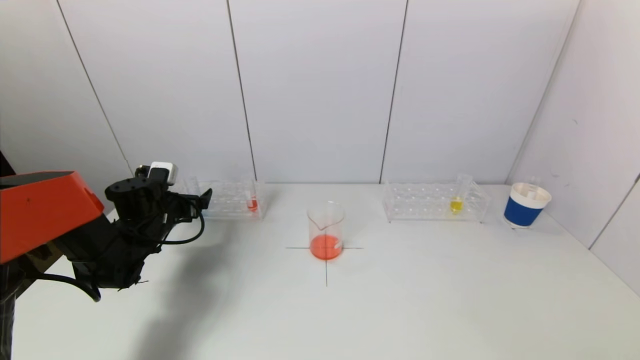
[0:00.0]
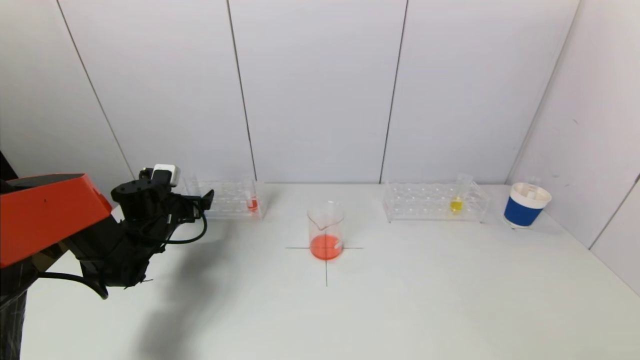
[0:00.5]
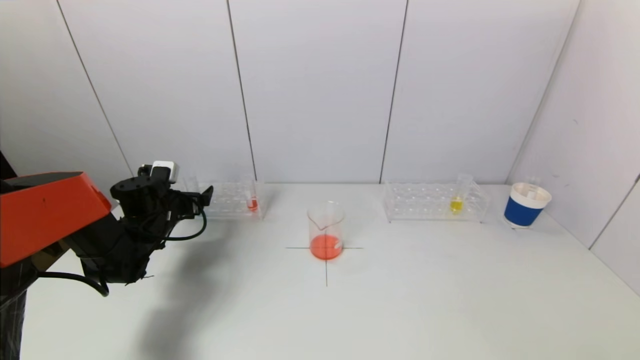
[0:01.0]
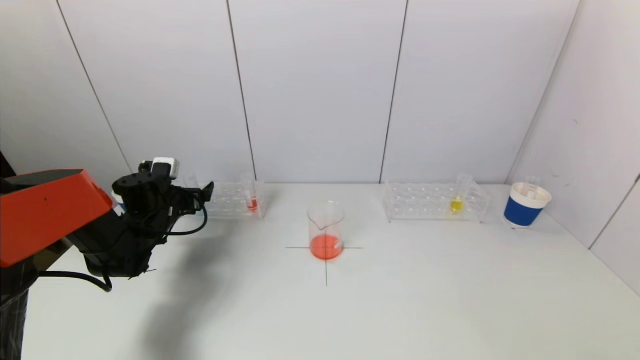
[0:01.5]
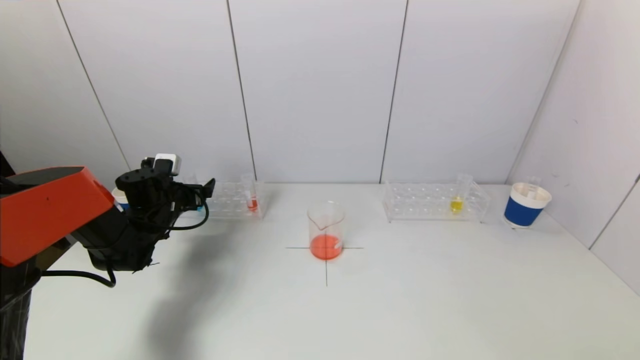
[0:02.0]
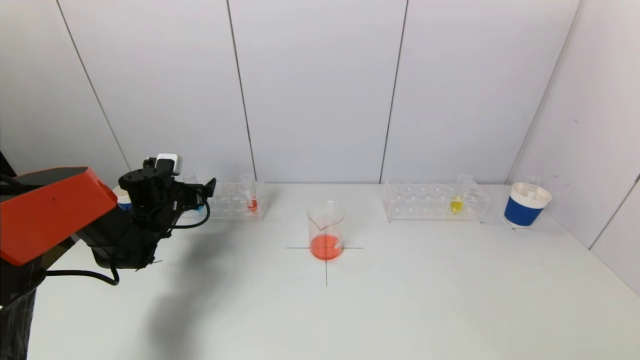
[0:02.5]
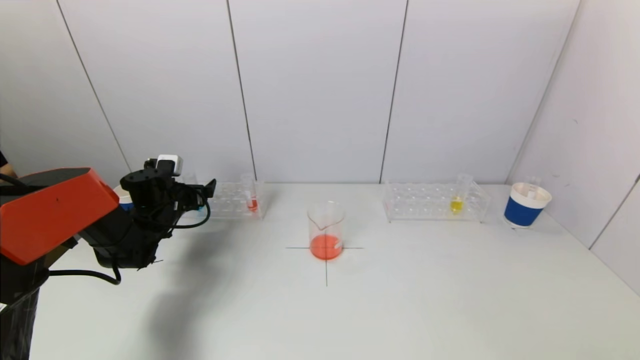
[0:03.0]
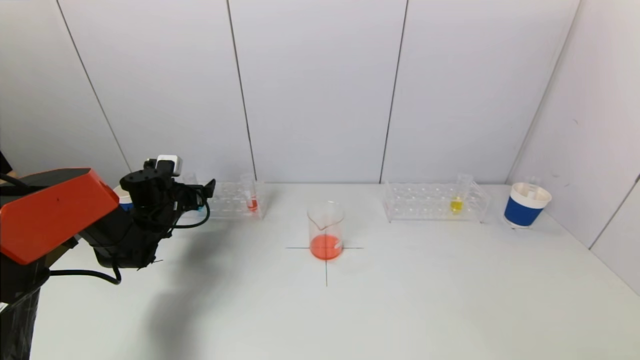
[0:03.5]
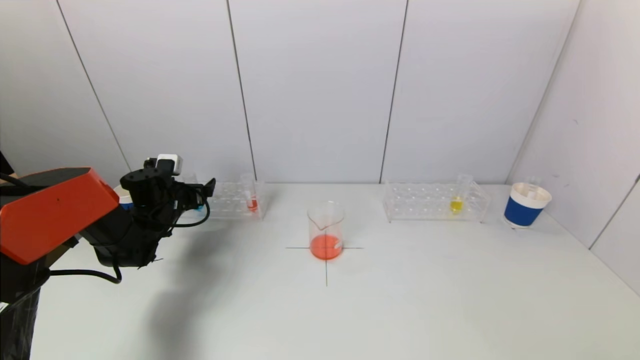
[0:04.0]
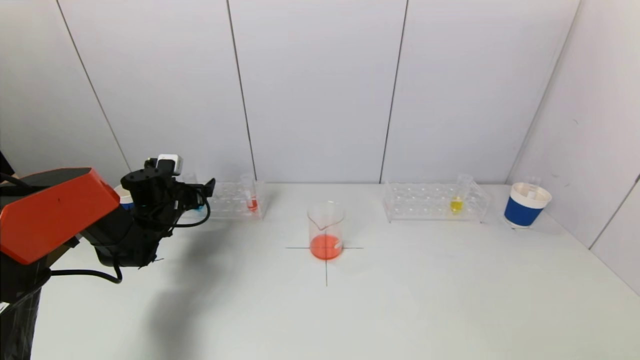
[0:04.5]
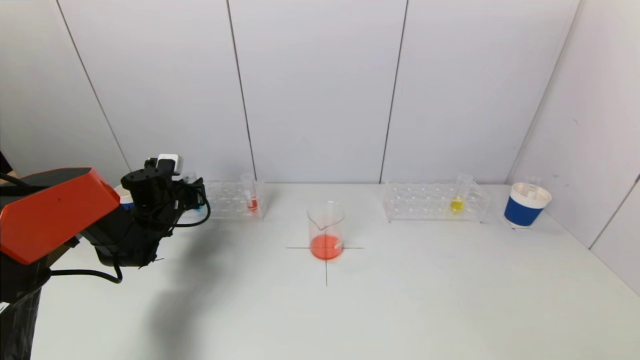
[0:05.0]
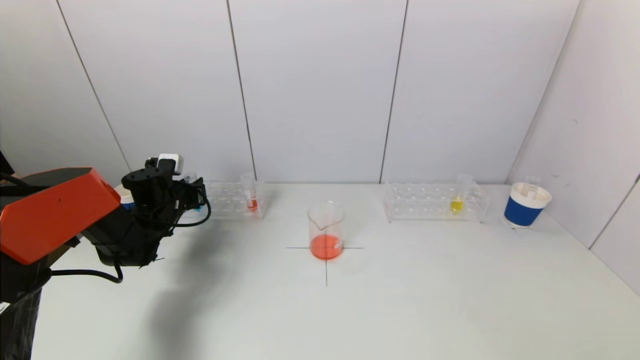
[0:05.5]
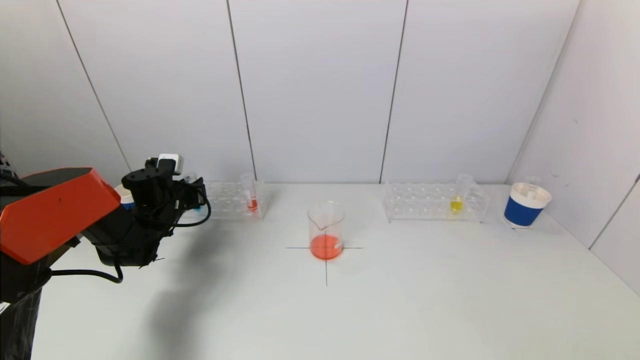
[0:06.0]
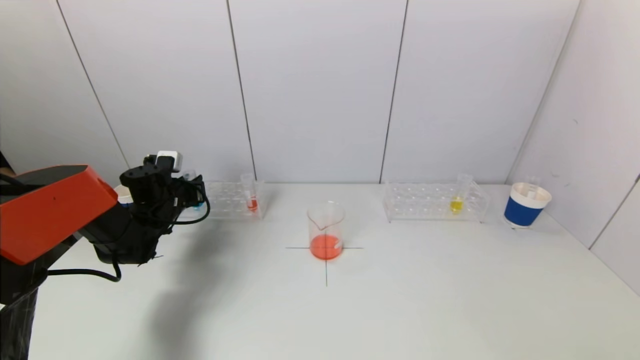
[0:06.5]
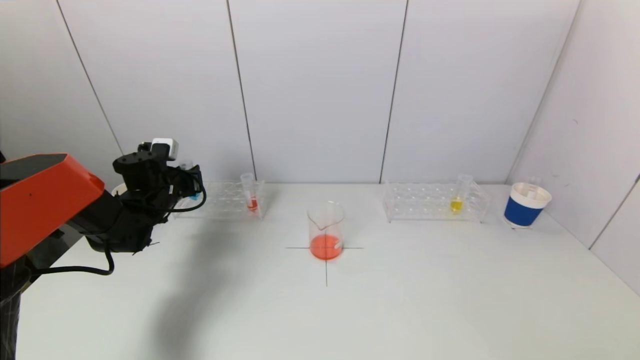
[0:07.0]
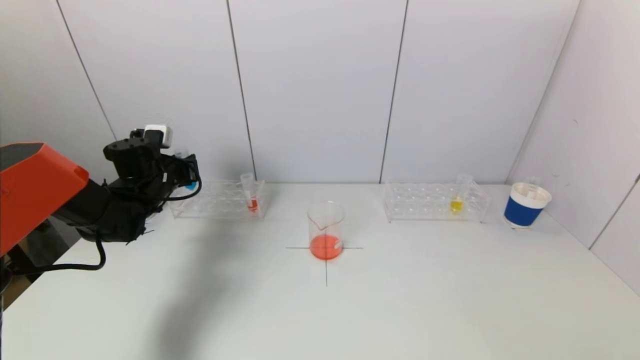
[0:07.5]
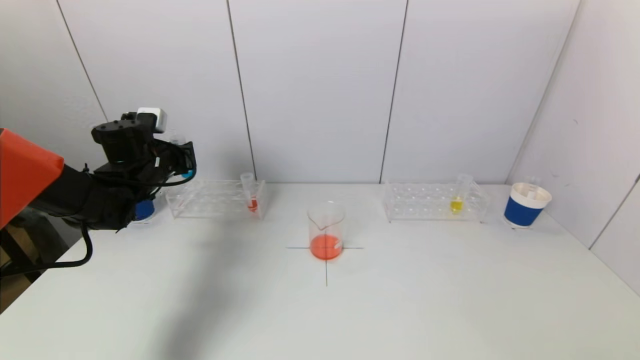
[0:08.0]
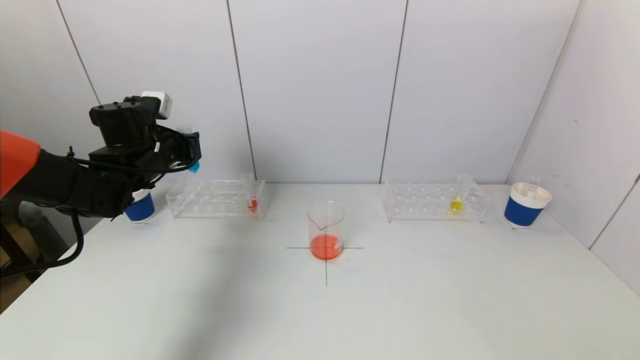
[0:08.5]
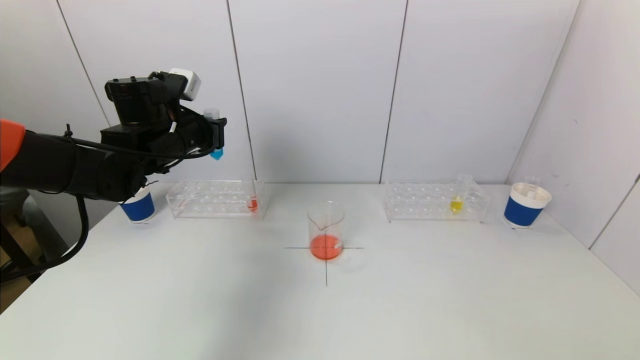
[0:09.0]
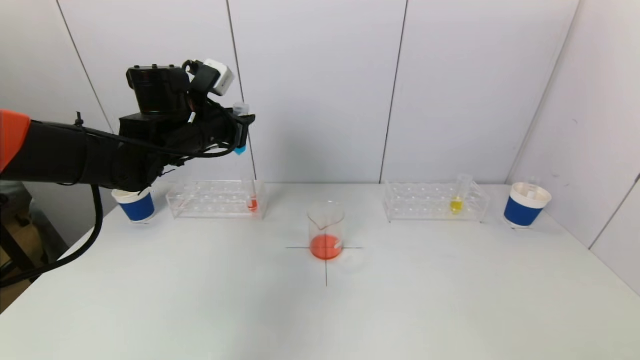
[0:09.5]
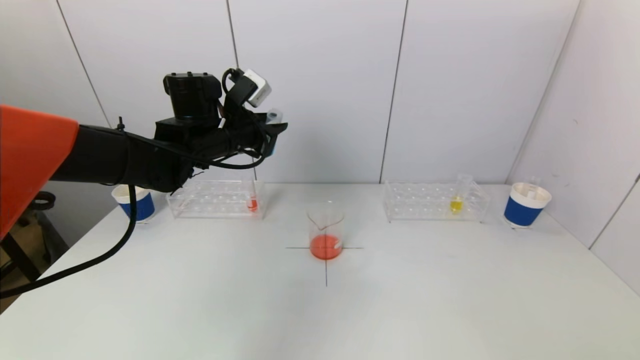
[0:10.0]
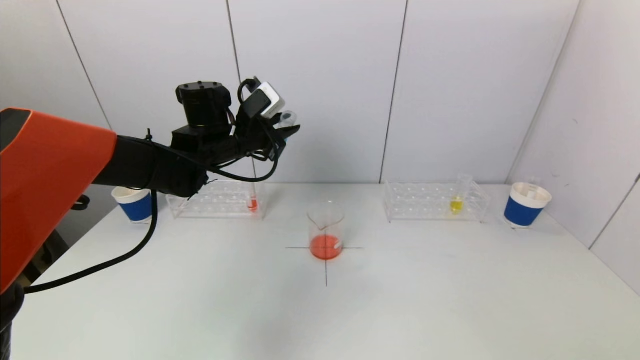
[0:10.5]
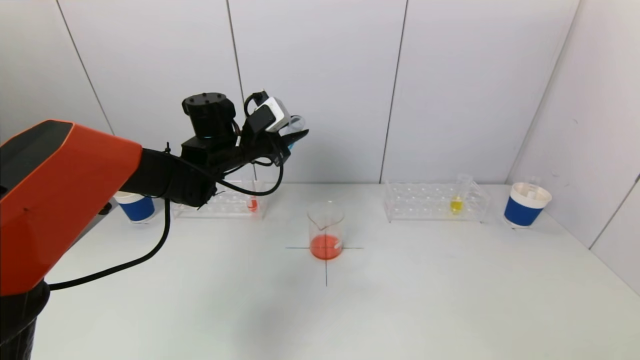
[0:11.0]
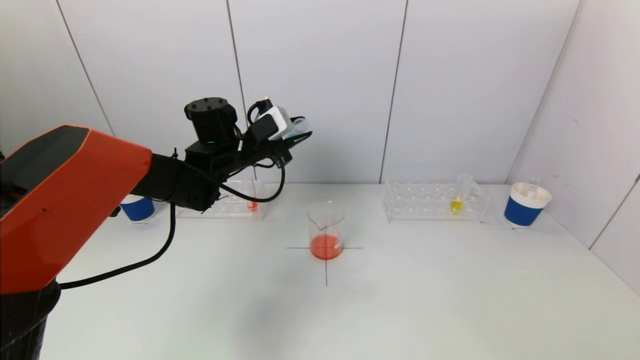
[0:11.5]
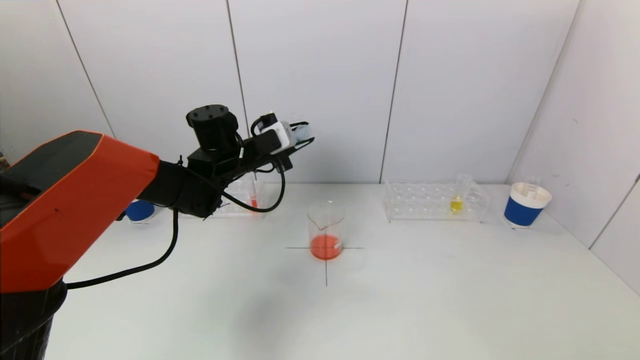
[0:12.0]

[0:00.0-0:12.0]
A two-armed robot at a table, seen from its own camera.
Task of the whole recording: pick up a test tube with pigment on left test tube rack and a test tube with pigment on right test tube rack by grippers and pour them into the beaker.
Step, 0:00.0 to 0:05.0: Grasp the blue reagent with the left gripper.
0:00.0 to 0:02.0: The grippers stay close to where they were, moving slightly.
0:02.0 to 0:04.0: Neither gripper changes place.
0:04.0 to 0:06.0: The left gripper closes its fingers.
0:06.0 to 0:08.0: The left gripper shifts roughly 10 cm upward.
0:08.0 to 0:10.0: The left gripper is displaced to the right and upward by approximately 15 cm.
0:10.0 to 0:12.0: The left gripper shifts by approximately 5 cm.

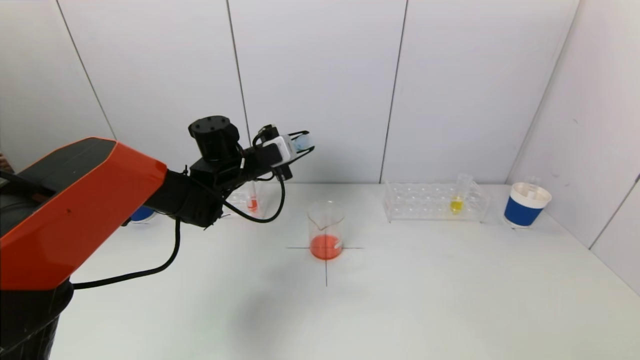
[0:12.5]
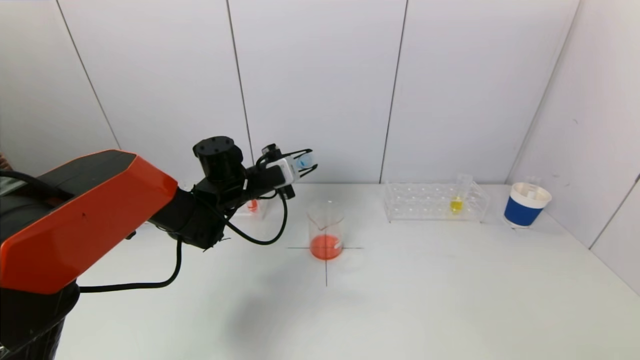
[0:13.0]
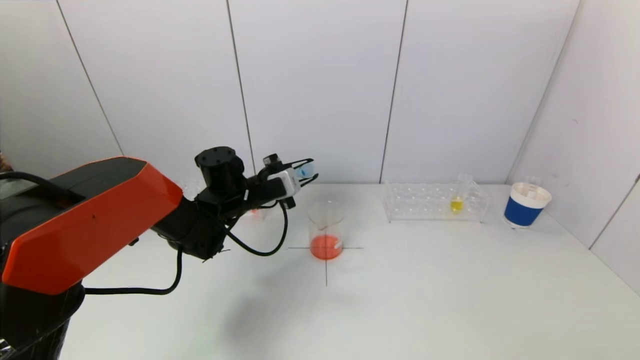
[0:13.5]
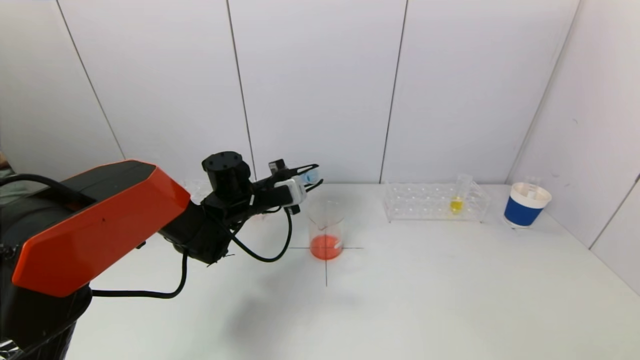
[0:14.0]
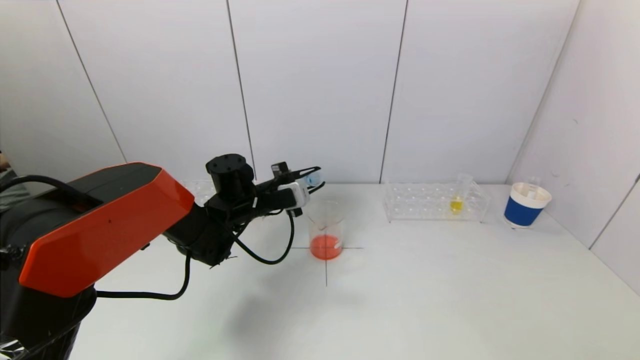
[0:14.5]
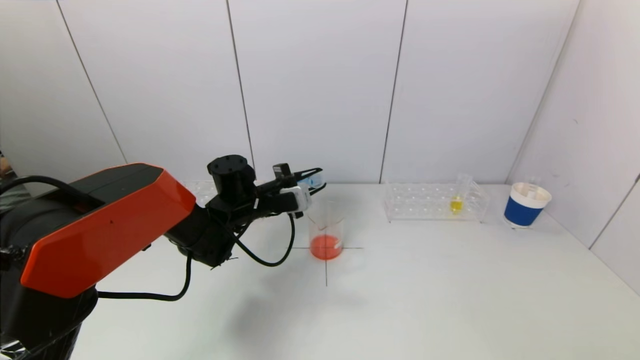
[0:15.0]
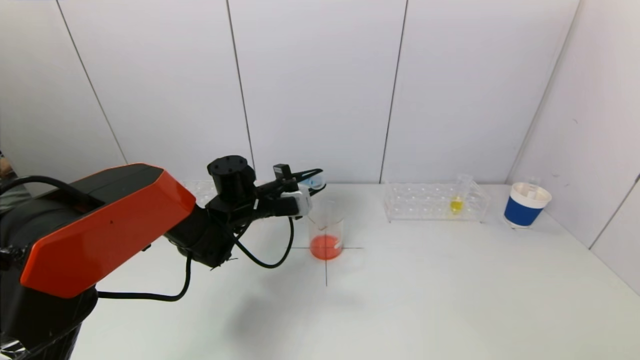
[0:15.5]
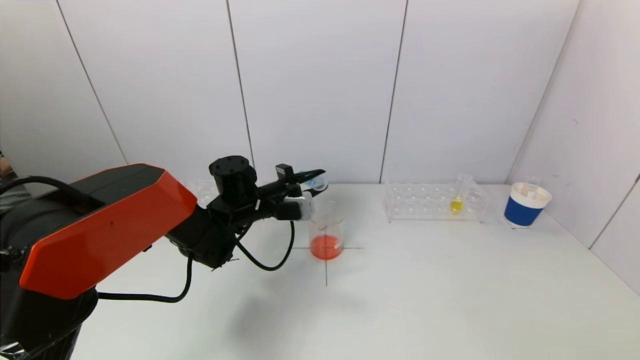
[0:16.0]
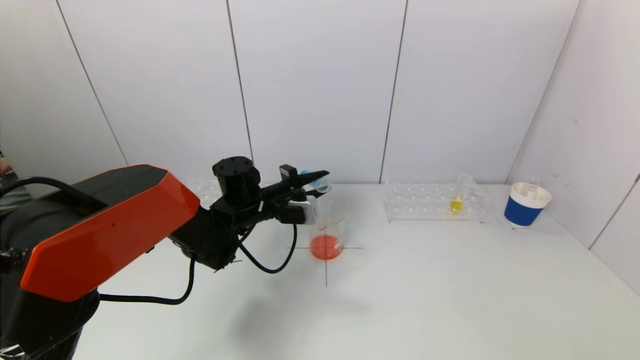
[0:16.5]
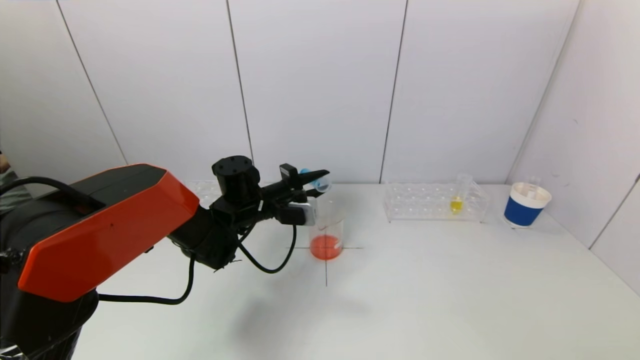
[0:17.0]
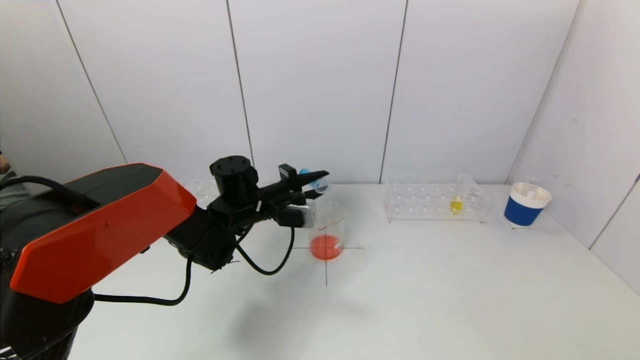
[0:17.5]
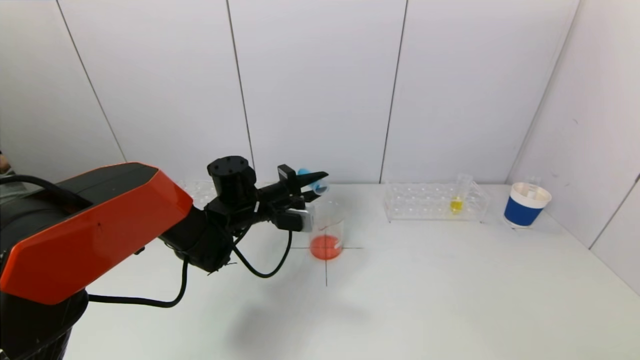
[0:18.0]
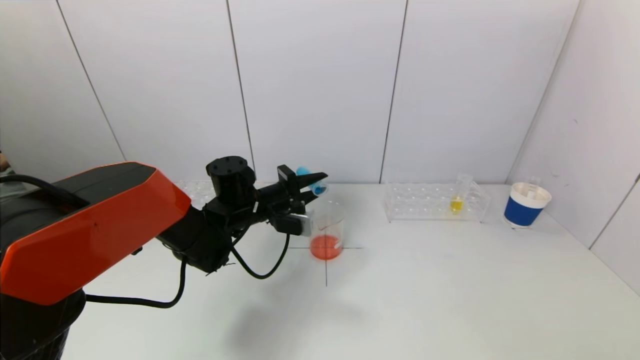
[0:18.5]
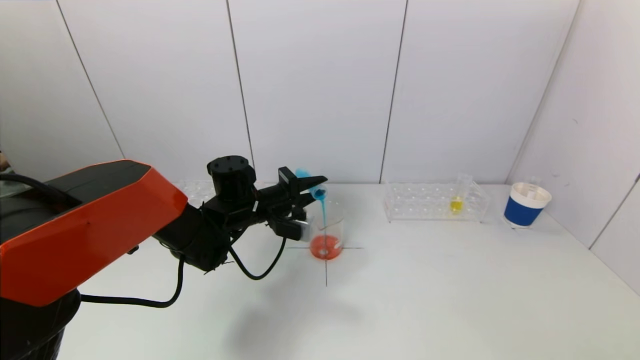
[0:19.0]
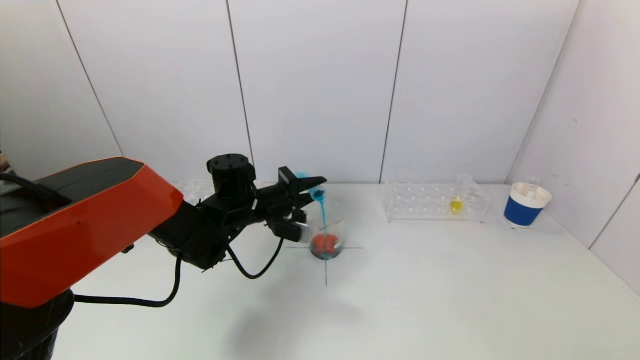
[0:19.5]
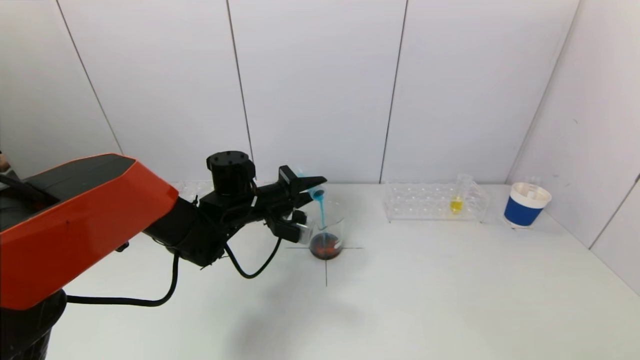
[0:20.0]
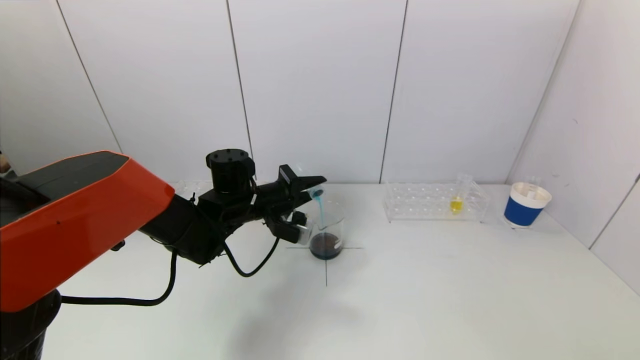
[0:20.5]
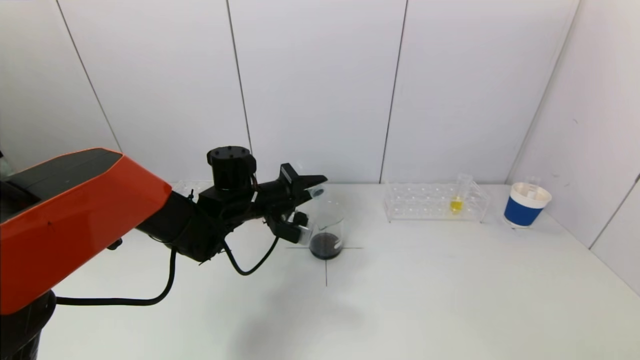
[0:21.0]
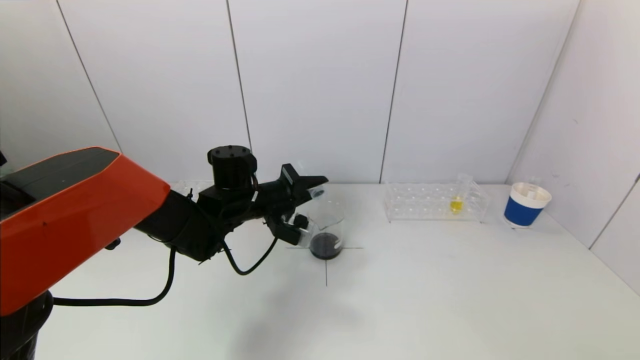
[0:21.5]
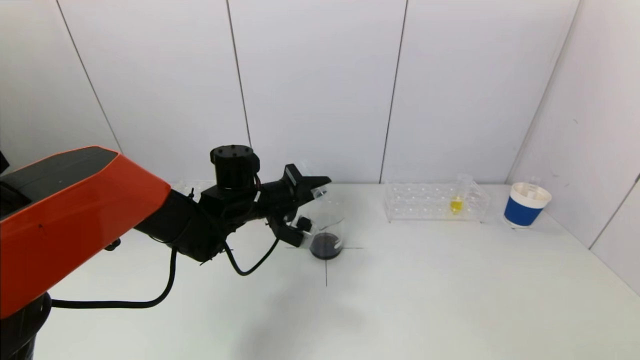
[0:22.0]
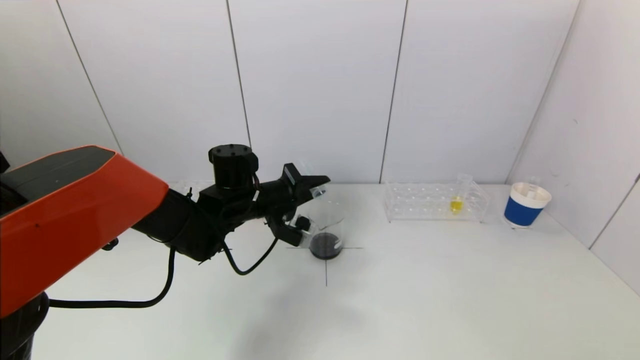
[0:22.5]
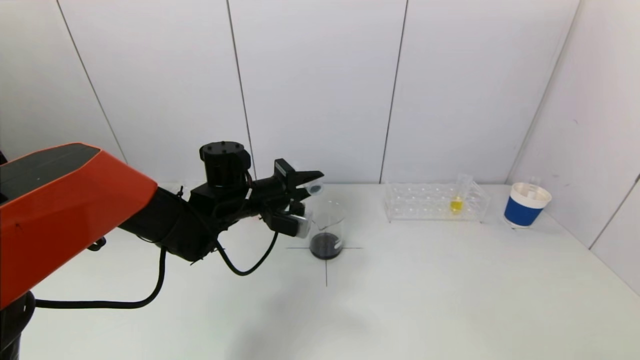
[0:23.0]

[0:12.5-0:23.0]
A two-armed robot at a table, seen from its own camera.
Task of the whole recording: pick up a test tube with pigment on left test tube rack and a test tube with pigment on right test tube rack by grippers and pour them into the beaker.
Step, 0:12.5 to 0:23.0: Pour the blue reagent into the graduated cylinder with the left gripper.
0:12.5 to 0:14.5: The left gripper is displaced downward by roughly 5 cm.
0:14.5 to 0:16.5: The grippers move only a little.
0:16.5 to 0:19.0: The grippers make only small movements.
0:19.0 to 0:23.0: The grippers stay close to where they were, moving slightly.
